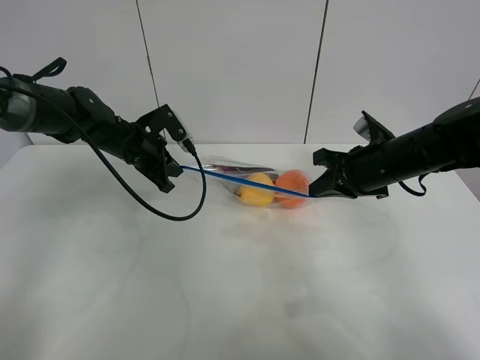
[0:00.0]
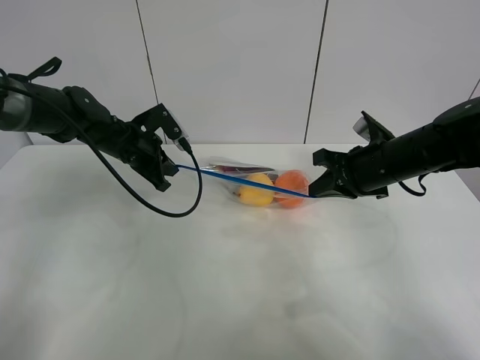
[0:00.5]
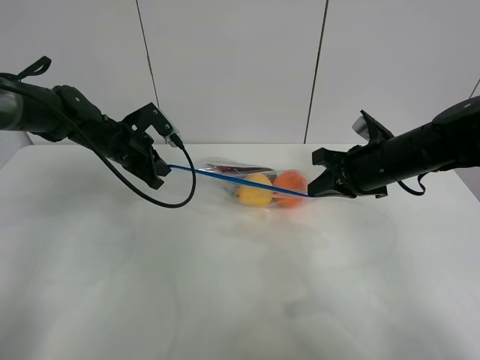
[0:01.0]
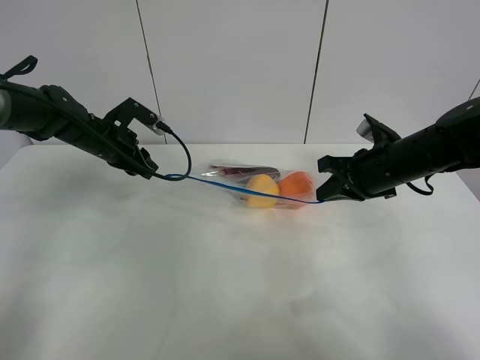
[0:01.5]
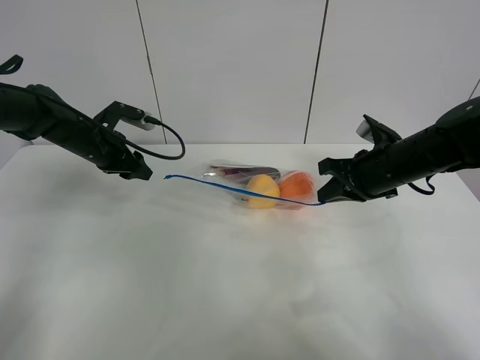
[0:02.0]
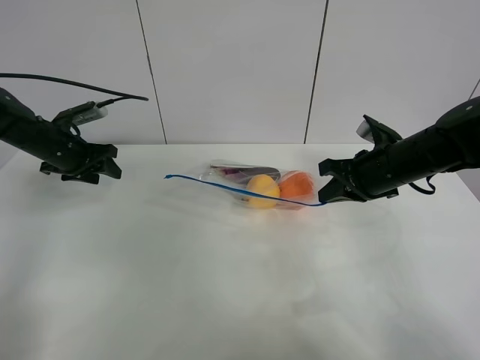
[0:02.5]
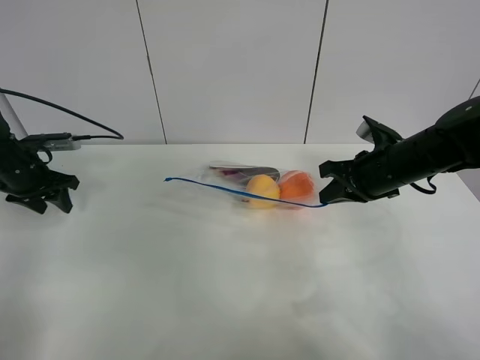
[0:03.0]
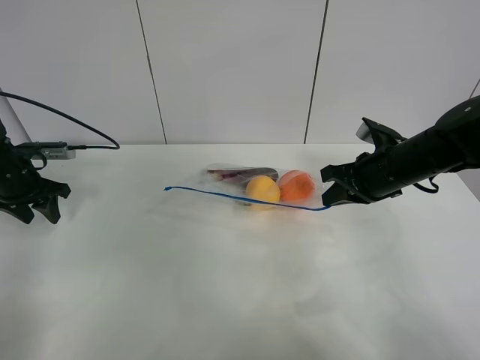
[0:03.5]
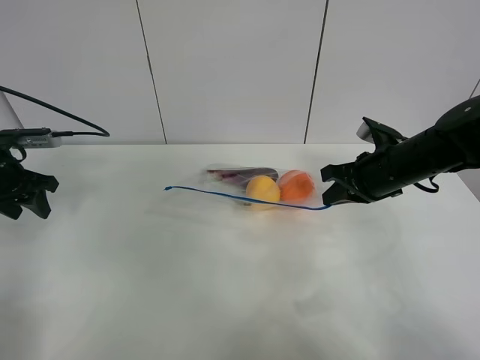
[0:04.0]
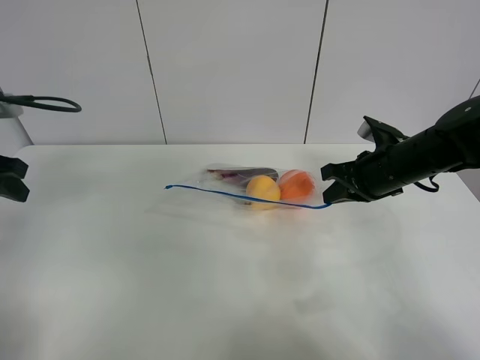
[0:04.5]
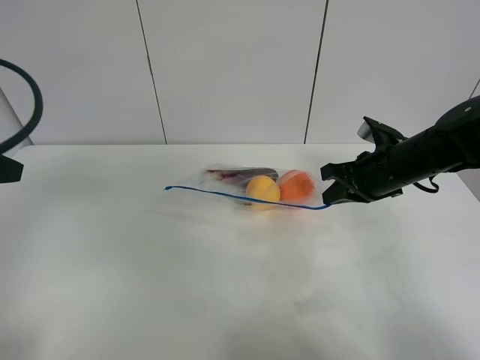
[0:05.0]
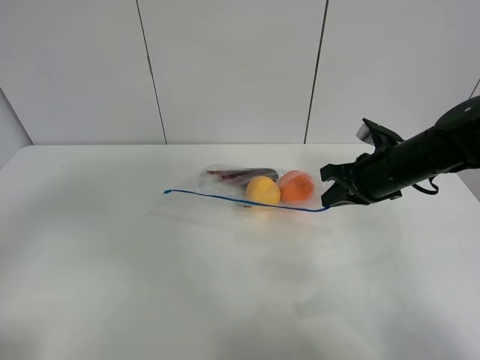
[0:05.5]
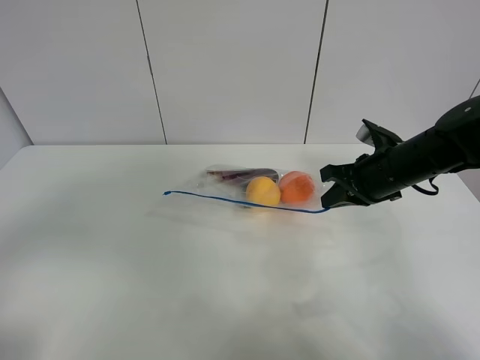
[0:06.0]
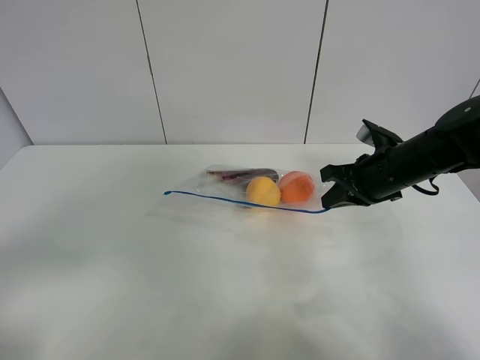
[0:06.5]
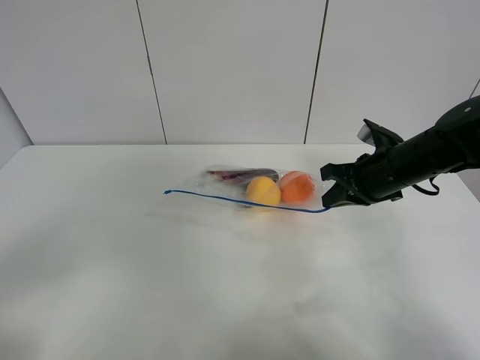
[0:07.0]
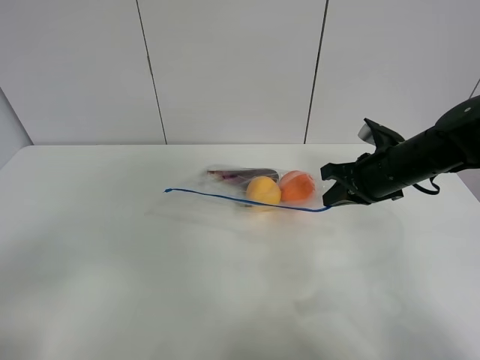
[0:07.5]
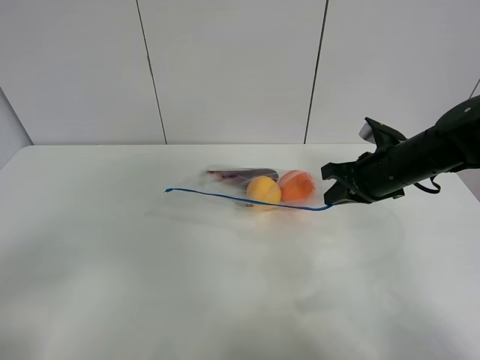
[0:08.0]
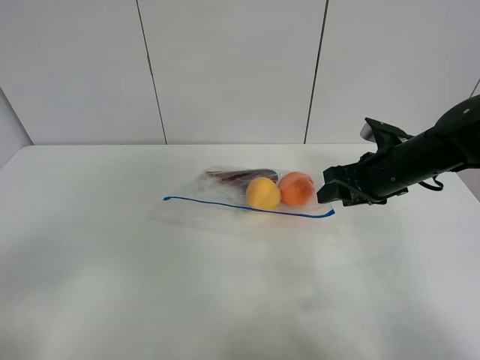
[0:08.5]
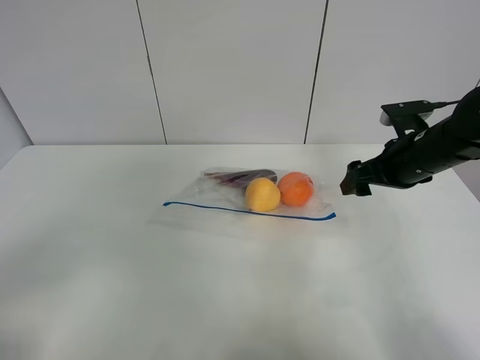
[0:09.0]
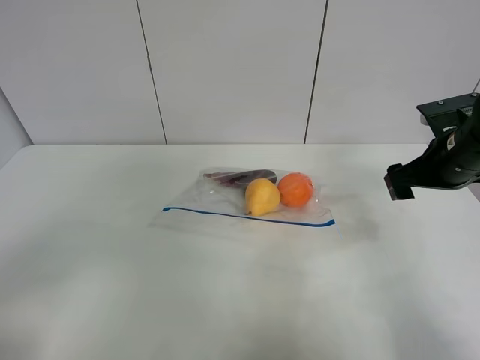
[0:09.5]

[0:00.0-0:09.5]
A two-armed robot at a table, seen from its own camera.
0:00.0 to 0:02.0: The left gripper is displaced to the left by approximately 5 cm, and opens.
0:02.0 to 0:04.0: The left gripper travels to the left and backward by roughly 15 cm.
0:04.0 to 0:05.5: The left gripper is displaced backward, upward and to the right by about 30 cm.
0:05.5 to 0:07.5: The left gripper travels backward by approximately 10 cm.
0:07.5 to 0:09.5: The right gripper moves to the right, about 5 cm, and opens its fingers.

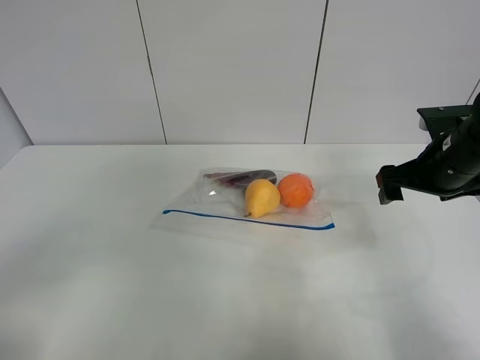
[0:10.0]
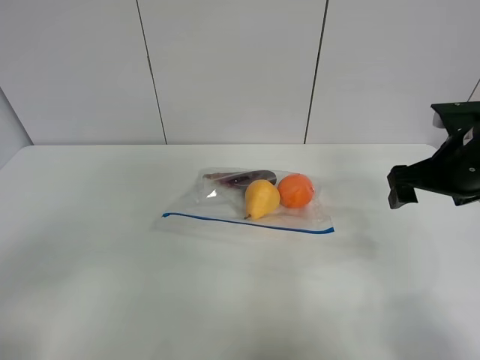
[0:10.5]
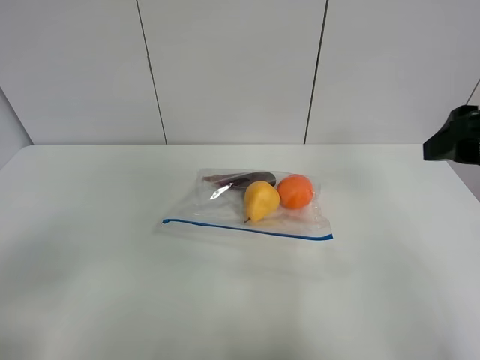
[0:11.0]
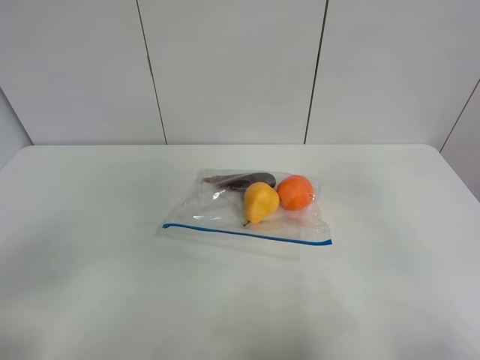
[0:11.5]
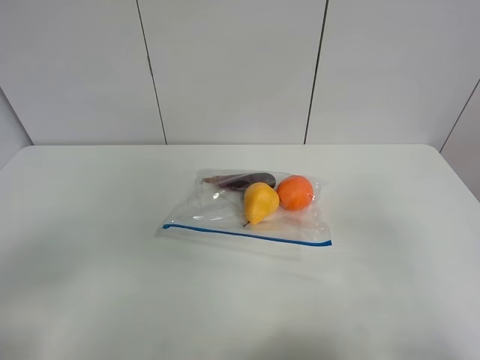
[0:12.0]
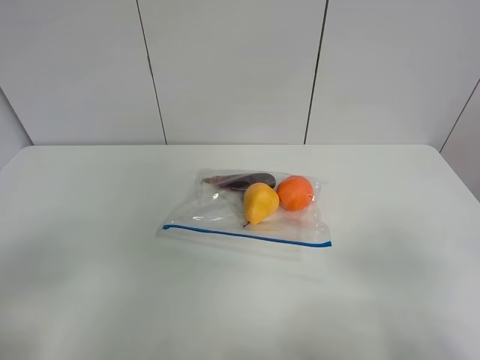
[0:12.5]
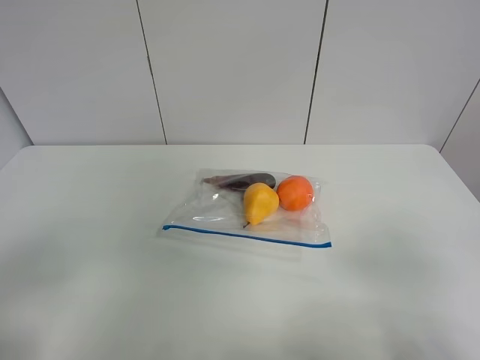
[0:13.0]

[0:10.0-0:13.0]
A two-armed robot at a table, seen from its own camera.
0:10.0 to 0:11.5: The right gripper heads backward and upward, covering approximately 25 cm.
0:11.5 to 0:13.0: The right gripper shifts some 15 cm downward and backward.

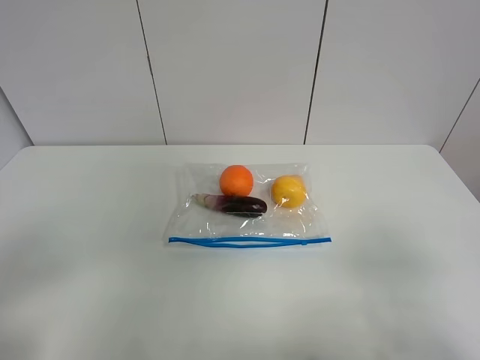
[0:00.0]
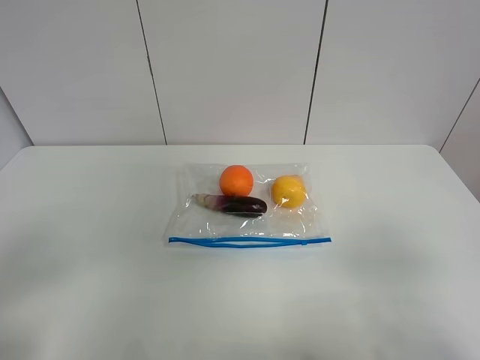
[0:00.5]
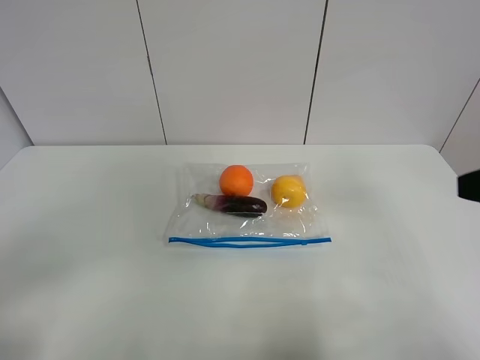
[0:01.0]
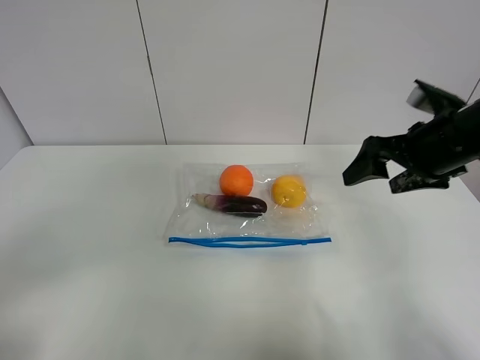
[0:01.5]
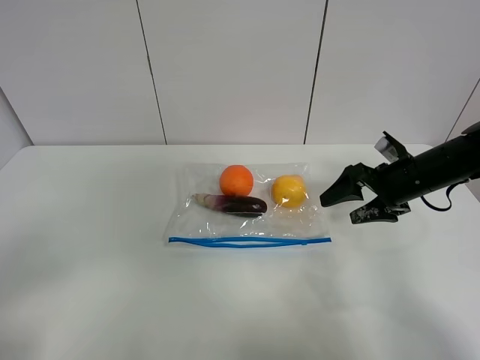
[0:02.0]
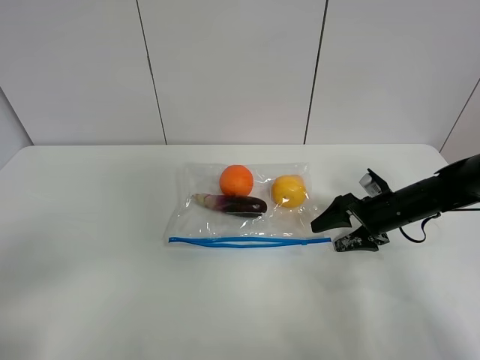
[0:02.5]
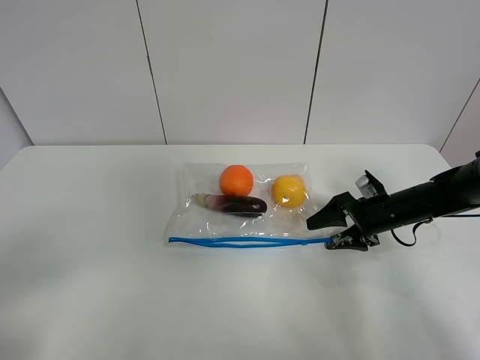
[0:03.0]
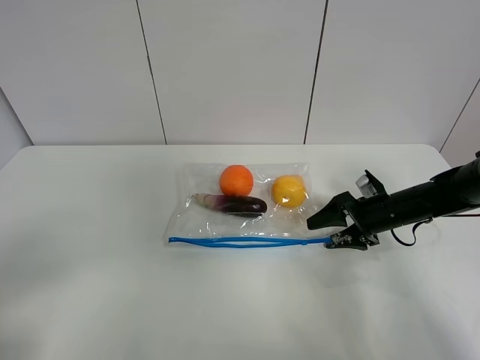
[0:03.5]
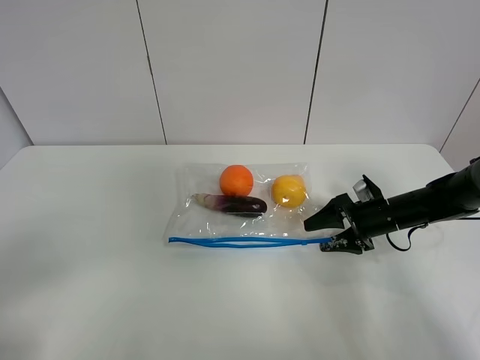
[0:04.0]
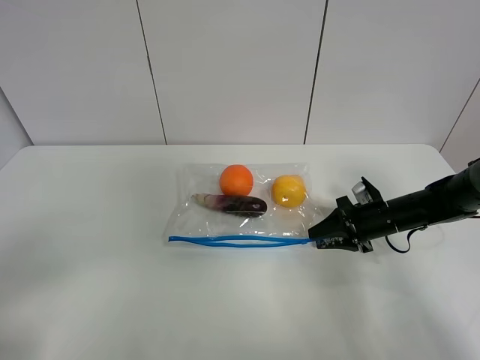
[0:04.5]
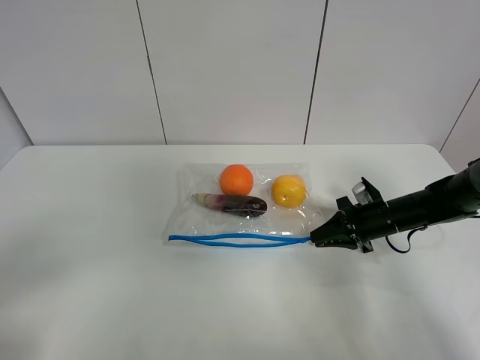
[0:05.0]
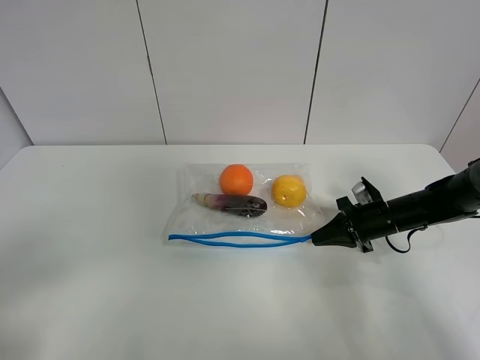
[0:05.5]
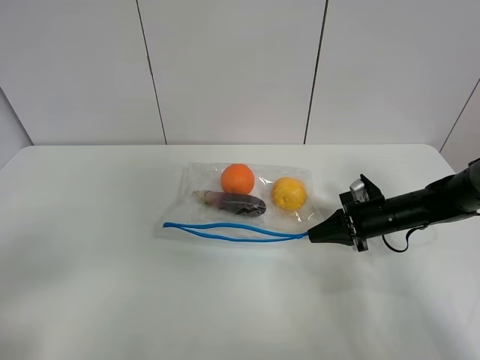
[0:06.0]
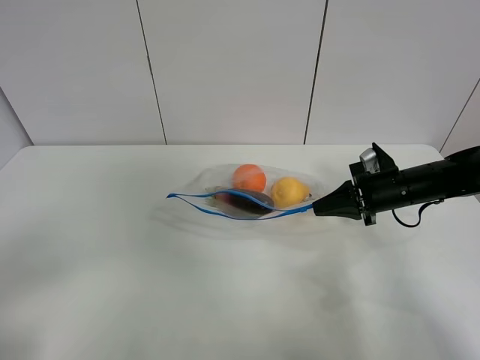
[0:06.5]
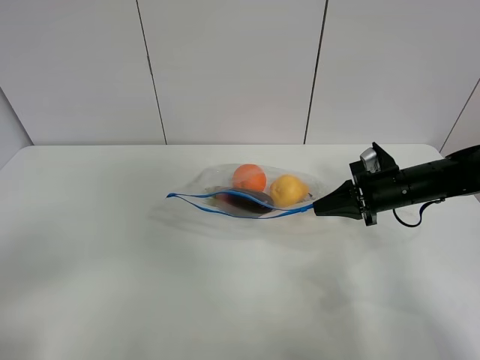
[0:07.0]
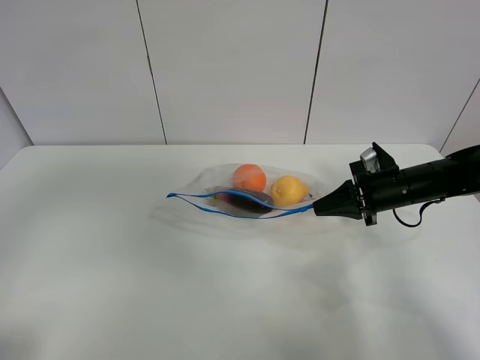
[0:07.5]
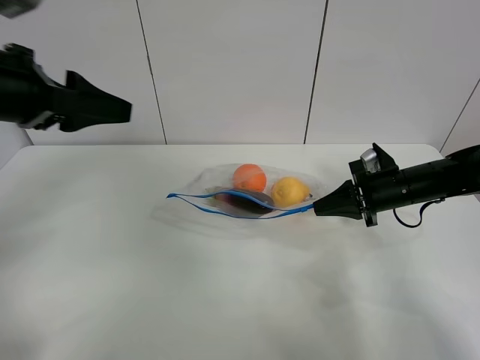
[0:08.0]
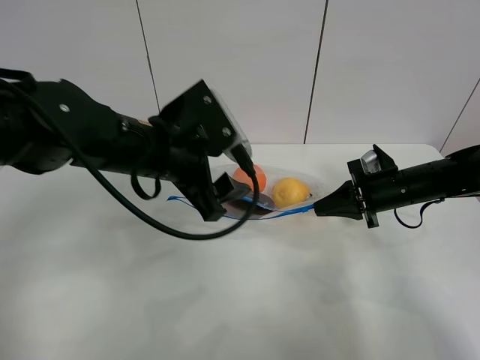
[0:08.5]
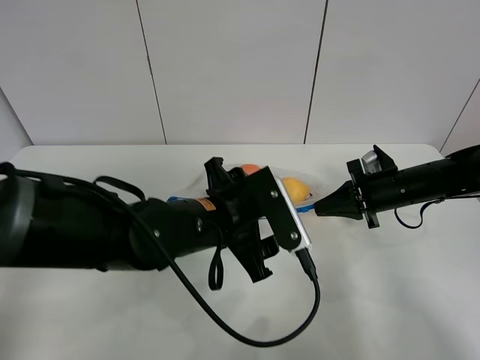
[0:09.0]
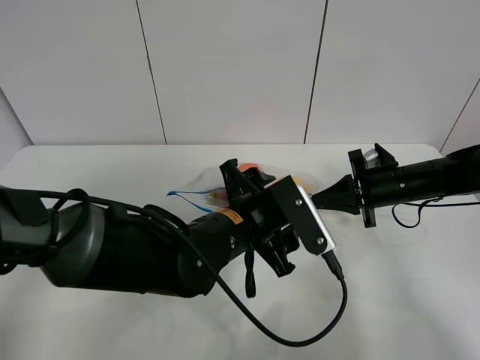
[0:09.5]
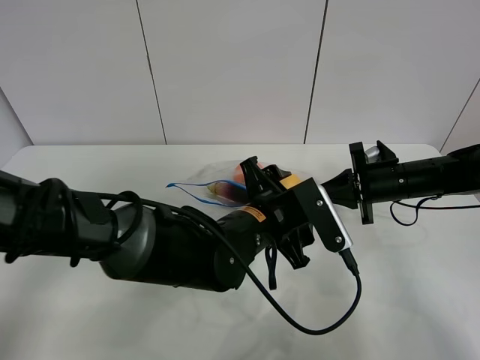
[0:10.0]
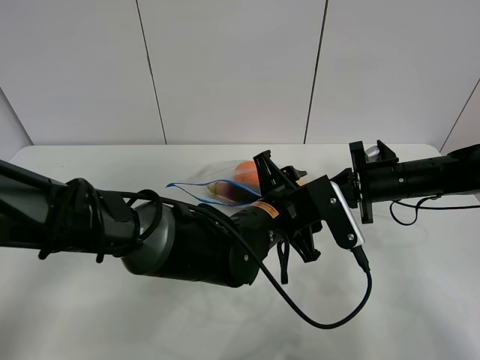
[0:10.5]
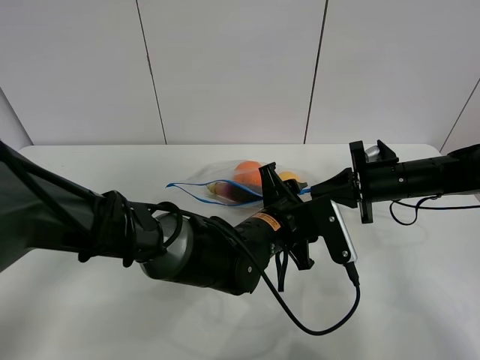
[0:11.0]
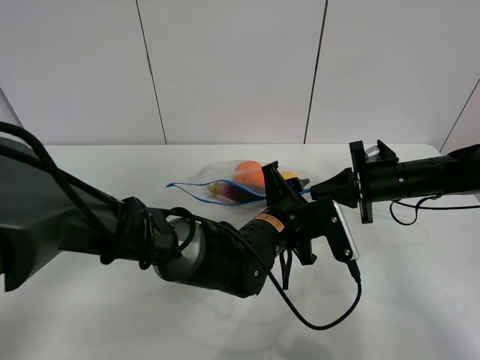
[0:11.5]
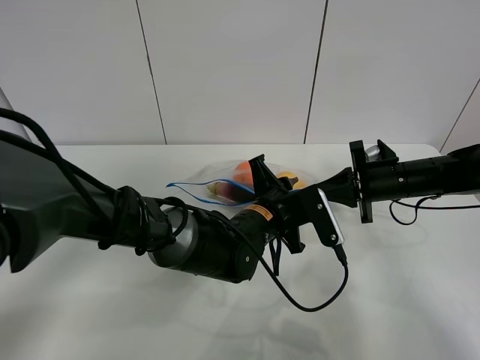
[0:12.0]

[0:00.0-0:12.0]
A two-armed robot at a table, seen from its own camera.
Step, 0:00.0 to 0:05.5: Grasp the fruit bag with right gripper.
Step, 0:06.0 to 0:06.5: Lift the fruit bag with your right gripper.
0:00.0 to 0:02.0: The right gripper is displaced forward by about 35 cm.
0:02.0 to 0:04.0: The right gripper heads downward, covering some 10 cm.
0:04.0 to 0:06.0: The right gripper closes up.
0:06.0 to 0:08.0: The left gripper heads forward, covering approximately 25 cm; the right gripper shifts about 5 cm upward.
0:08.0 to 0:10.0: The left gripper goes approximately 30 cm to the right and downward.
0:10.0 to 0:12.0: The left gripper moves about 5 cm, and closes its fingers.

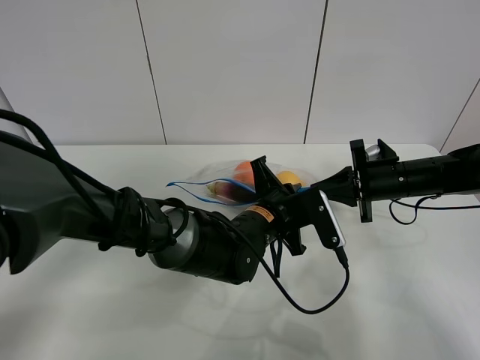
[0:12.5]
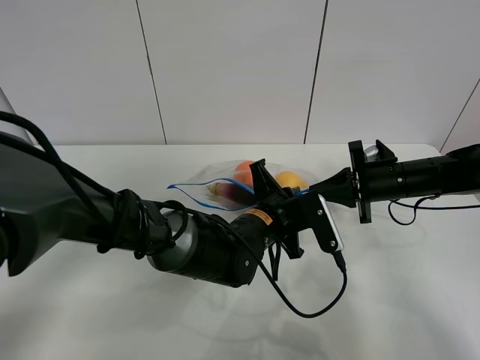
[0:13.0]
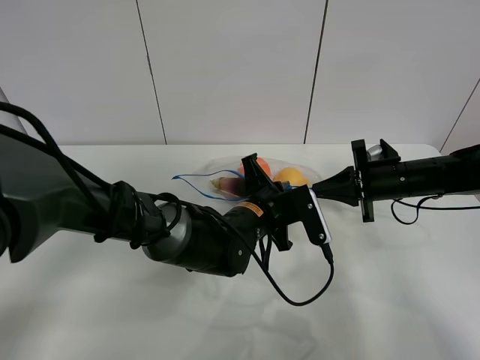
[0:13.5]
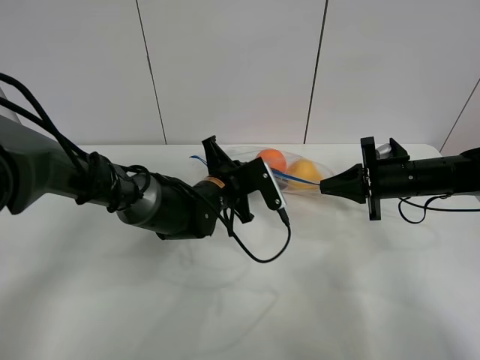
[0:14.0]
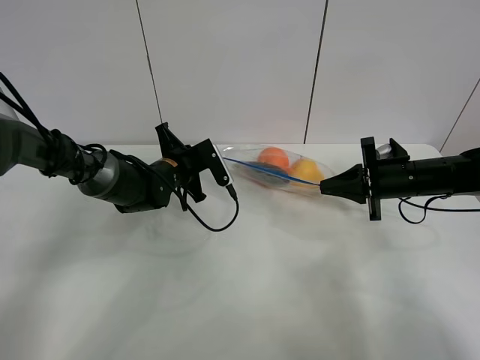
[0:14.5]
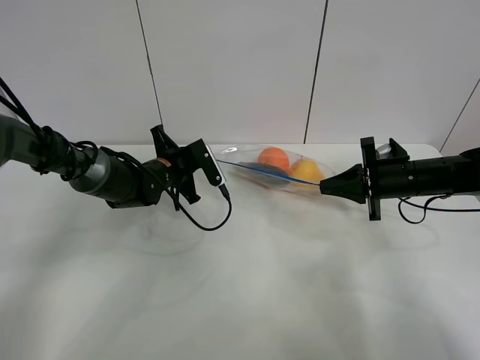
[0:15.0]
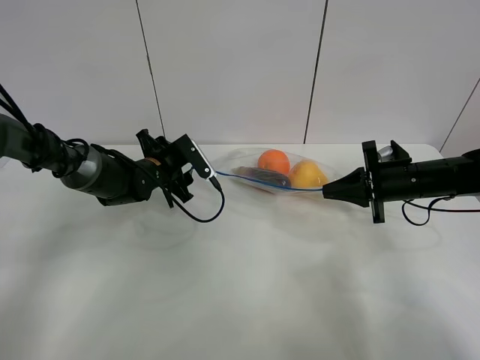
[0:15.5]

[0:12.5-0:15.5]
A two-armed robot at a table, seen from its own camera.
Step, 0:12.5 to 0:15.0: Pull the fruit bag with left gripper.
0:12.5 to 0:14.0: The left gripper heads to the left and forward, covering approximately 10 cm.
0:14.0 to 0:15.5: The left gripper travels to the left and forward by about 15 cm, and opens.
